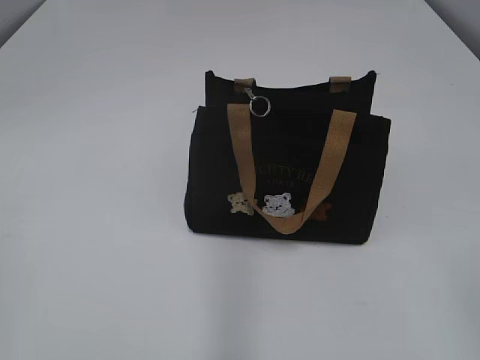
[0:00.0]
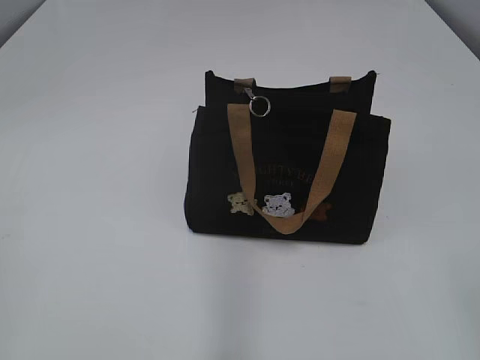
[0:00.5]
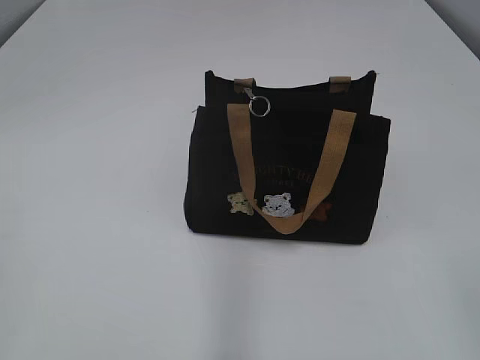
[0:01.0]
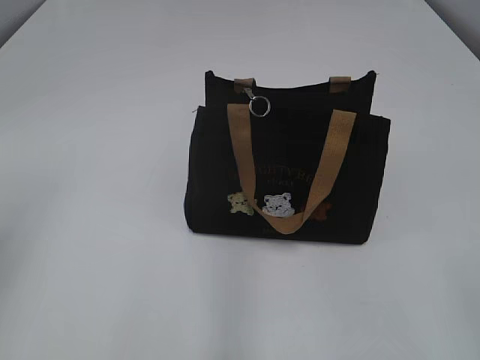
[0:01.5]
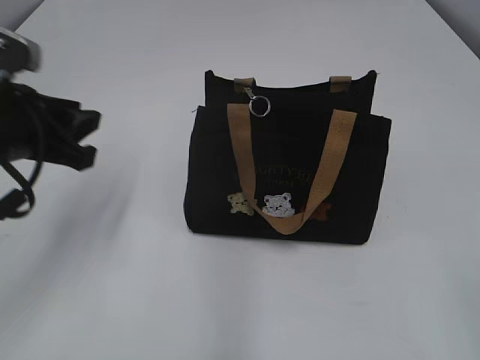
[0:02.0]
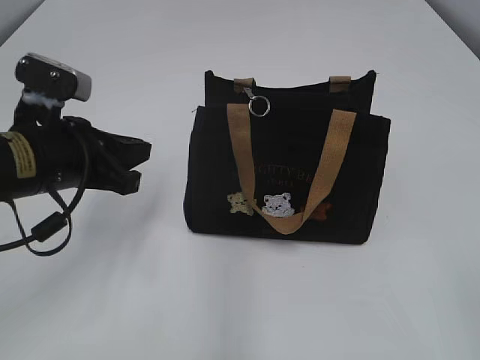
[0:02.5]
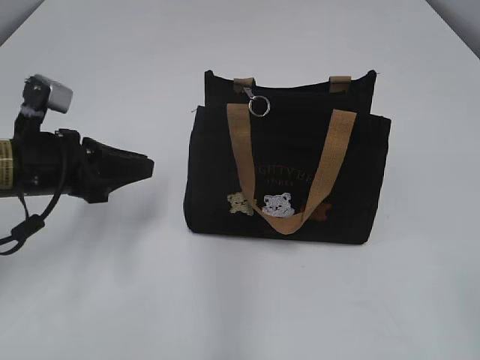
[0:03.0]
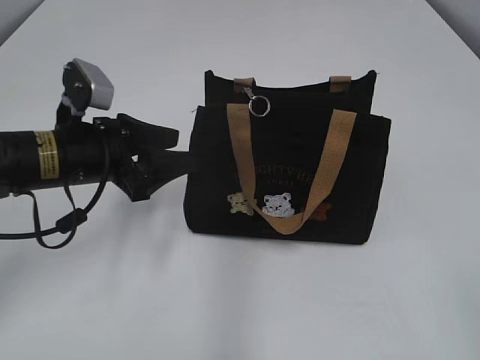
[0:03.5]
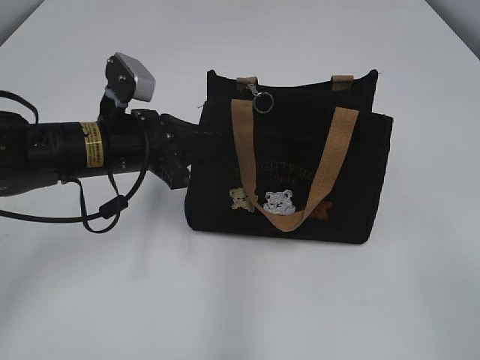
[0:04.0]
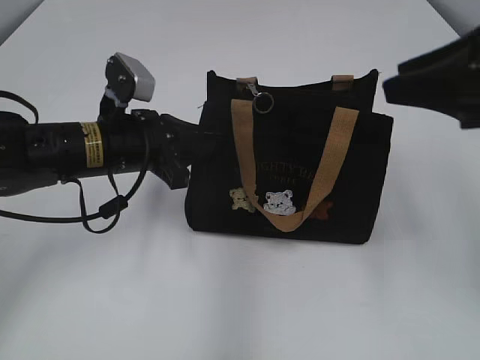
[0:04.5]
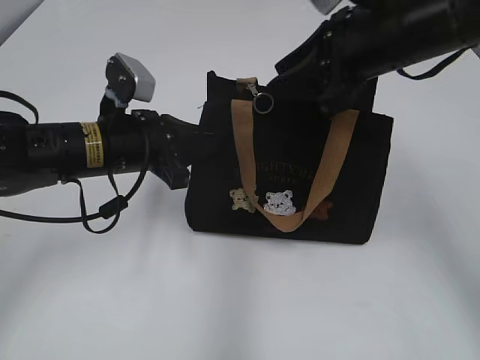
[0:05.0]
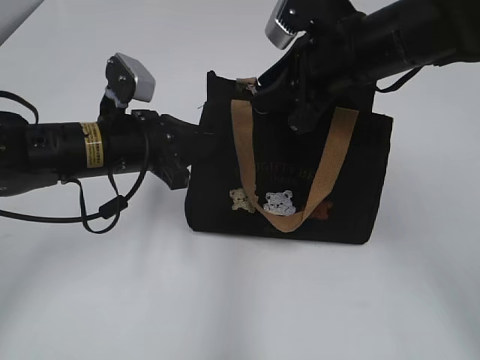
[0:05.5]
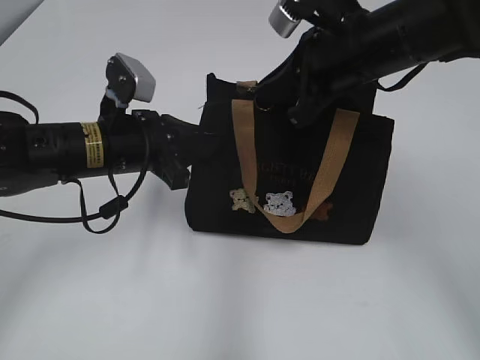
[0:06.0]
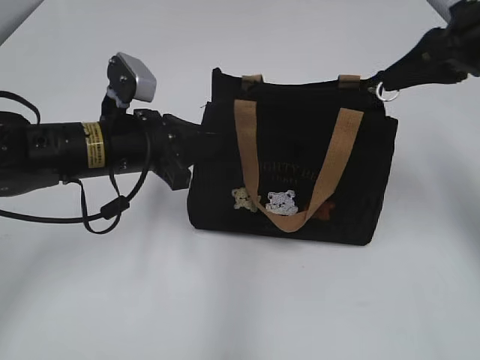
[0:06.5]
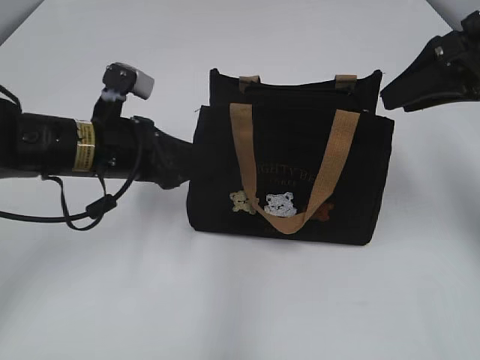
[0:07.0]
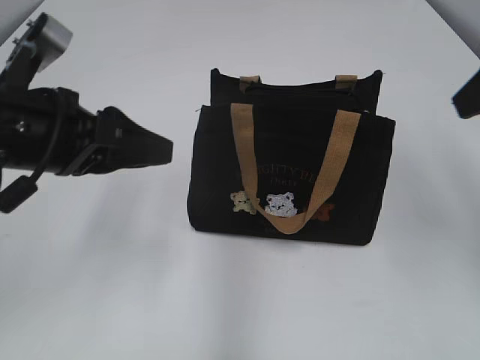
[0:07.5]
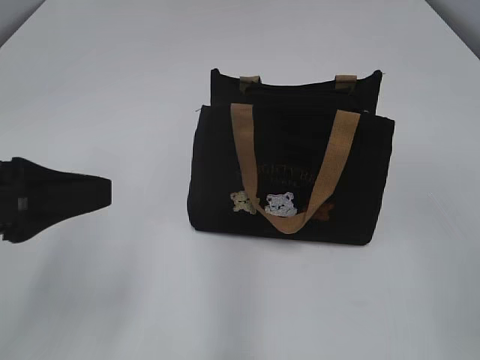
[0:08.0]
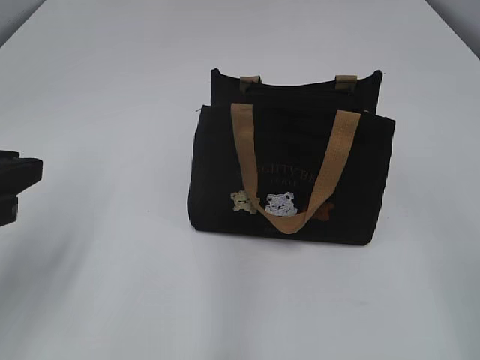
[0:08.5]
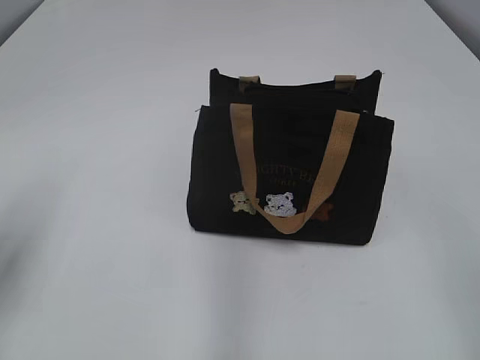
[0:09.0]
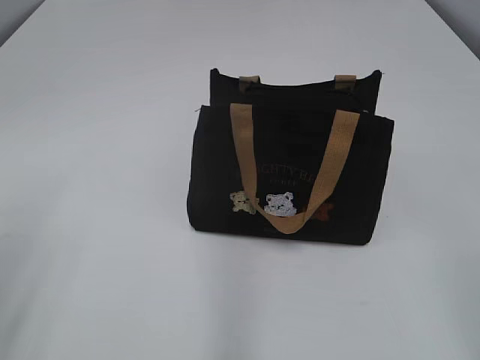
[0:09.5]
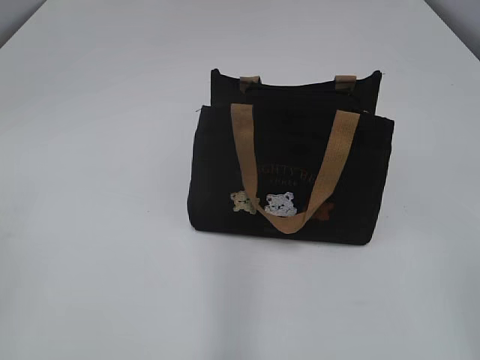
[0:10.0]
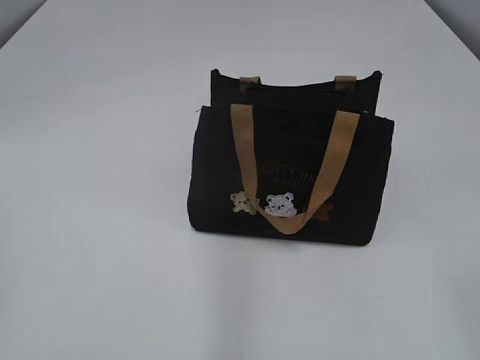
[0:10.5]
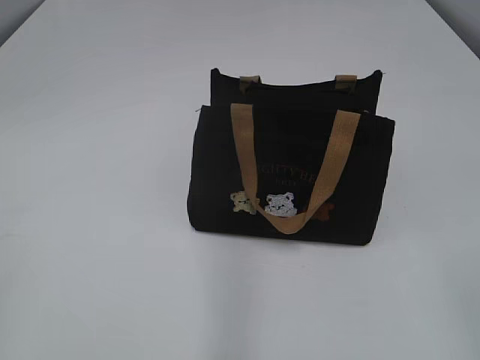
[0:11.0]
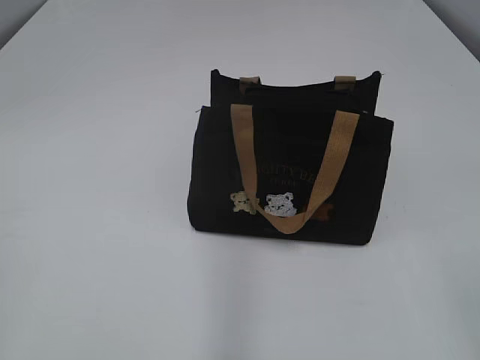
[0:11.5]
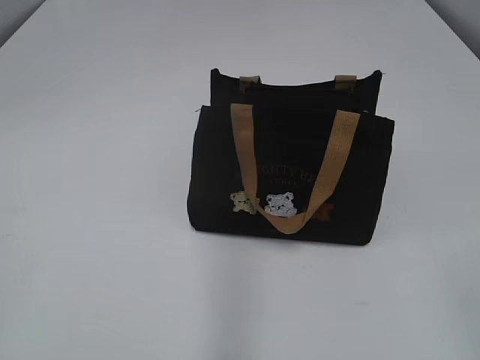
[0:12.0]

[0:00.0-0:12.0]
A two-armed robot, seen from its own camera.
Step, 0:00.0 to 0:06.5: Pull open the zipper with your right hand.
0:02.0 to 0:04.0: The left gripper shifts about 15 cm to the right, downward and forward, and opens, then closes again.
0:04.0 to 0:06.0: The right gripper shifts about 35 cm forward, and closes.
0:06.0 to 0:08.0: The left gripper travels backward, upward and to the left by roughly 20 cm, and opens up. The right gripper shifts roughly 25 cm backward and to the right, and opens its fingers.
0:08.0 to 0:10.0: The left gripper moves backward and to the left, approximately 15 cm.

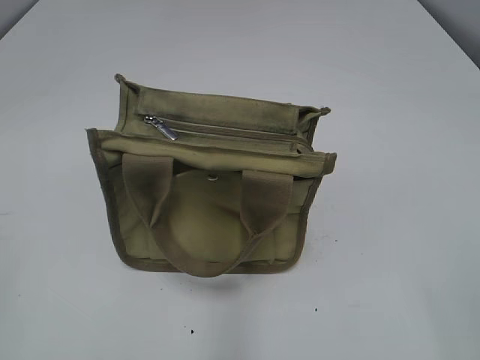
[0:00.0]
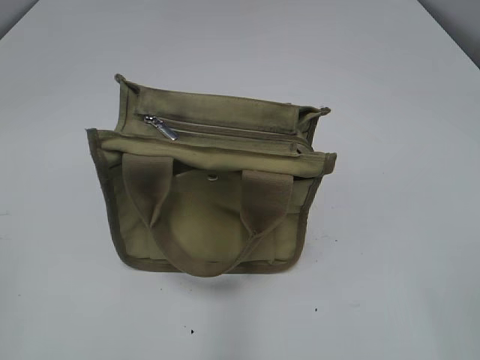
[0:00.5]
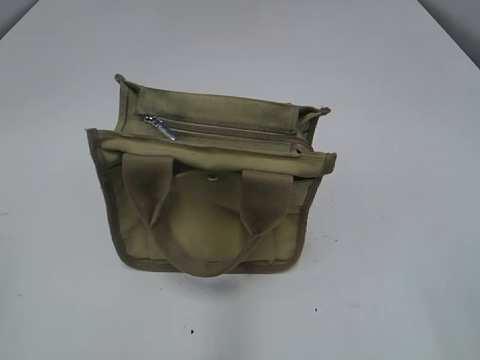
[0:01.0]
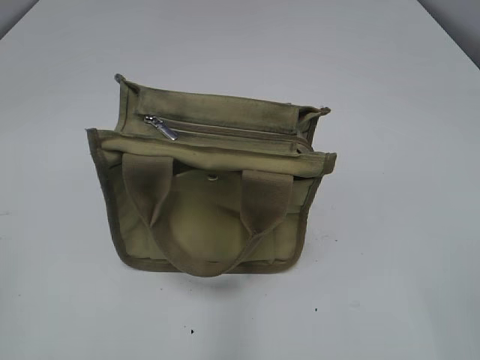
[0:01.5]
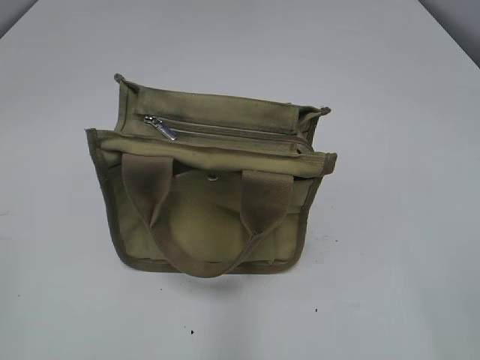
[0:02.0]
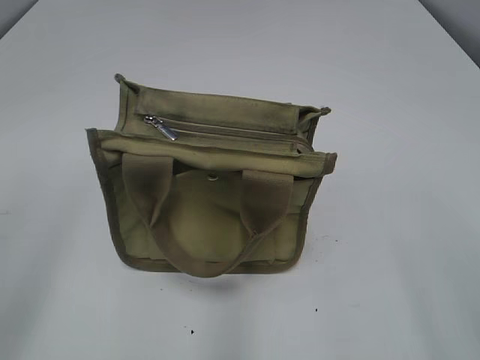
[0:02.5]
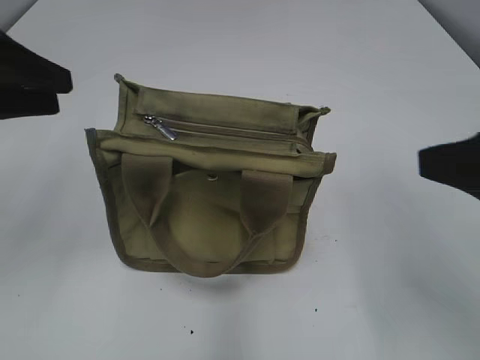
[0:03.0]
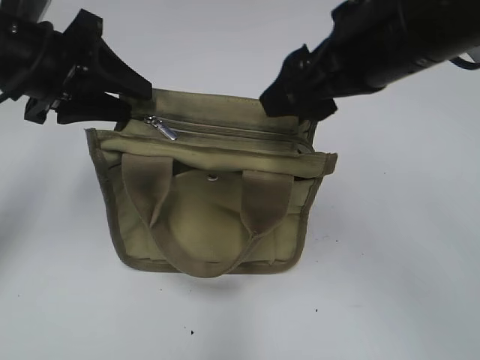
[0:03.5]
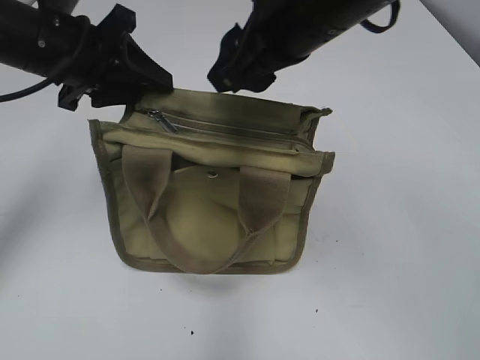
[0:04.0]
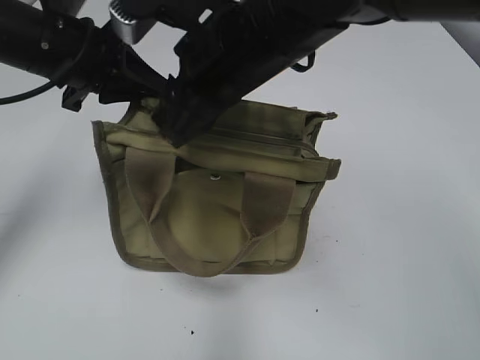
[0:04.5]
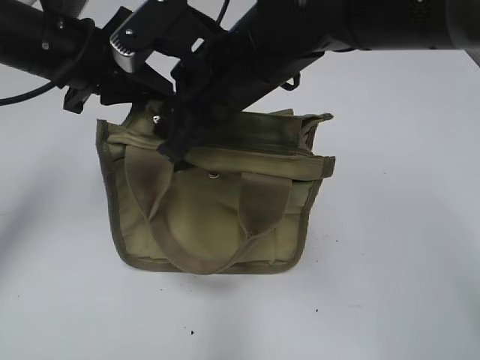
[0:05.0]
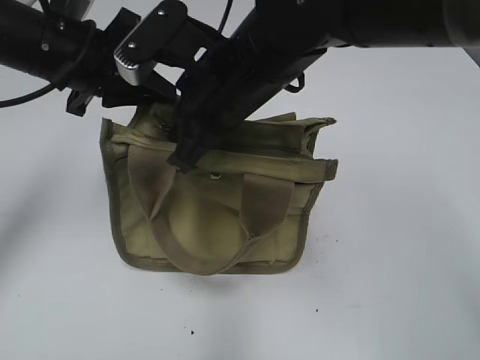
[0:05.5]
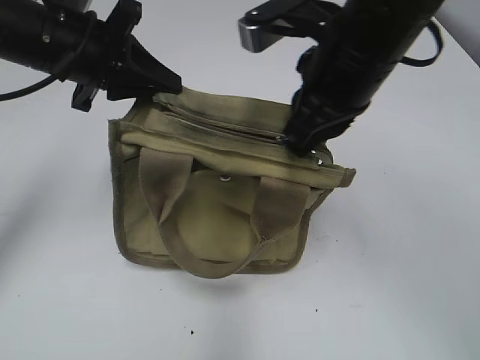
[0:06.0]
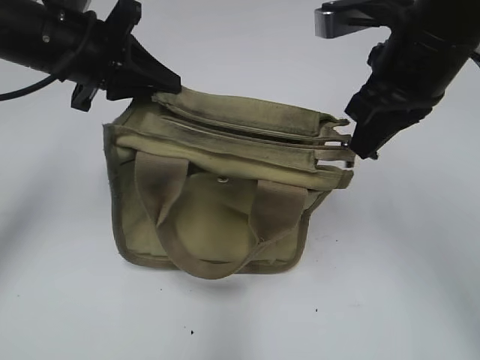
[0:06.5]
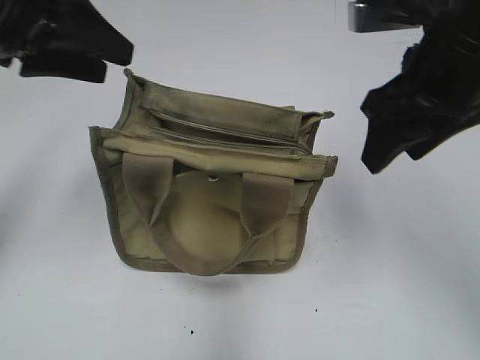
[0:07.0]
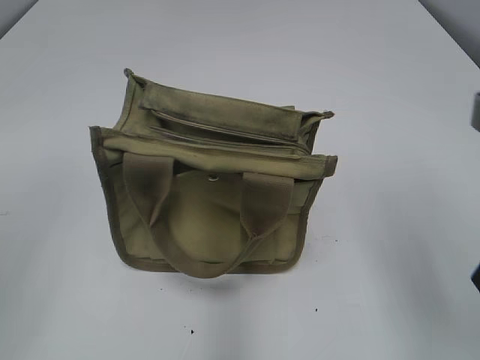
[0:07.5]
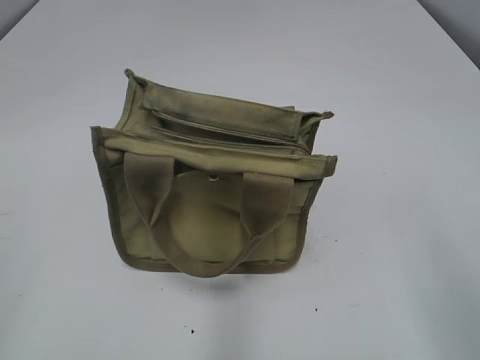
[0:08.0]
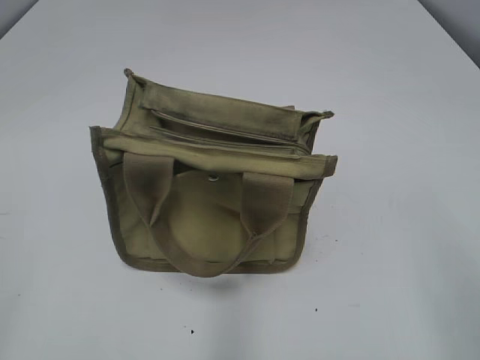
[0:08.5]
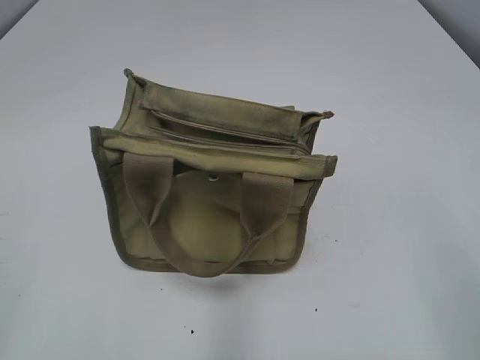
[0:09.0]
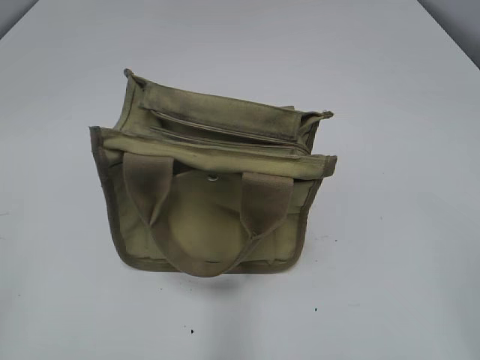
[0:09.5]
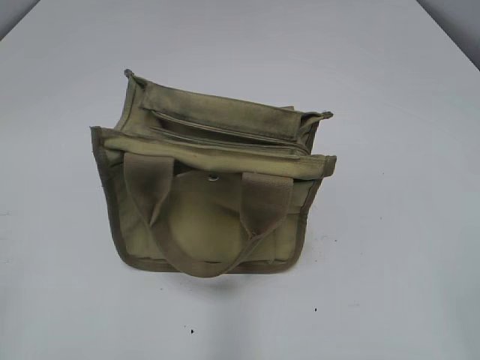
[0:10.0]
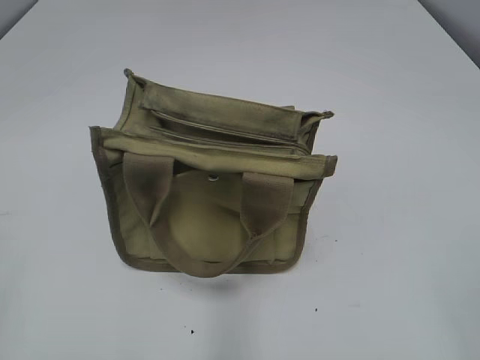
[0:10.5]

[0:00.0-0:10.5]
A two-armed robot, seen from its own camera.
Step, 0:00.0 to 0:06.5: Pull open the zipper with your right hand.
0:02.0 to 0:04.0: The right gripper shifts roughly 35 cm forward and to the left. Meanwhile the left gripper heads forward, covering approximately 35 cm.
0:04.0 to 0:06.5: The right gripper moves to the right, approximately 10 cm, and closes. Meanwhile the left gripper closes its fingers.
0:06.5 to 0:08.5: The right gripper moves backward and to the right, roughly 25 cm, and opens up, while the left gripper shifts about 35 cm backward and to the left, and opens its fingers.

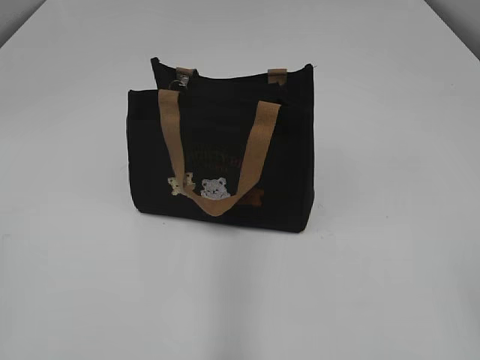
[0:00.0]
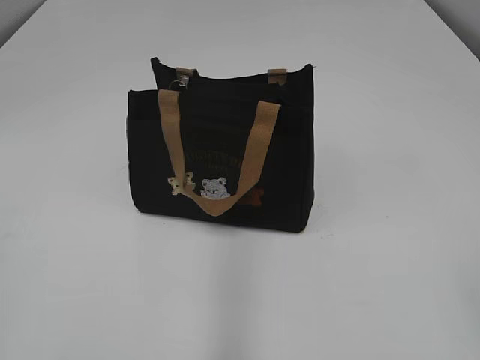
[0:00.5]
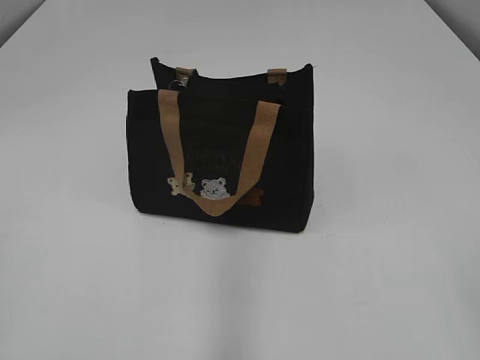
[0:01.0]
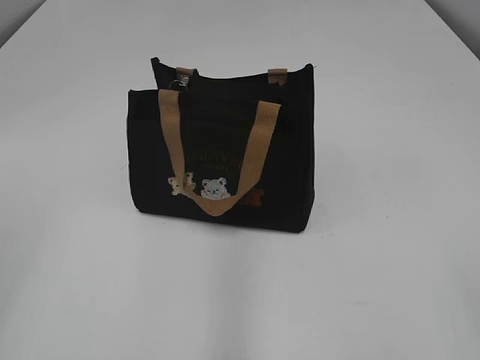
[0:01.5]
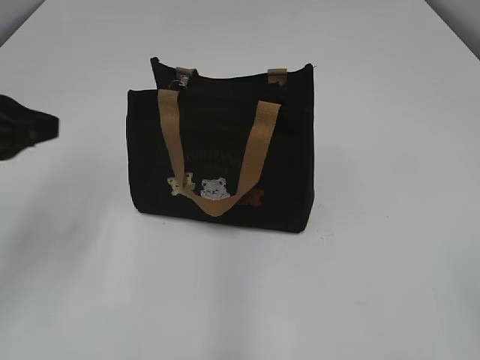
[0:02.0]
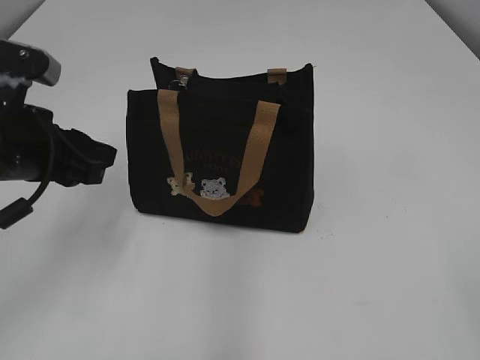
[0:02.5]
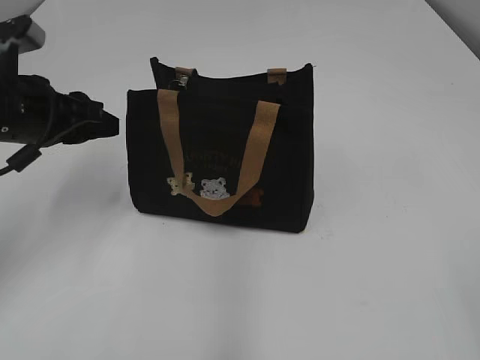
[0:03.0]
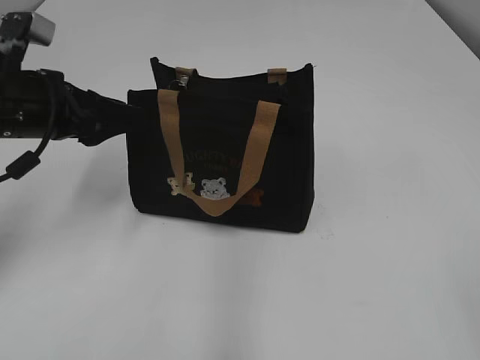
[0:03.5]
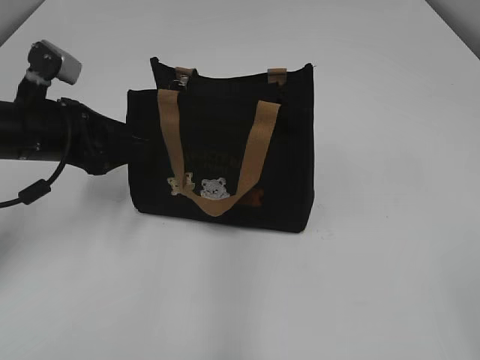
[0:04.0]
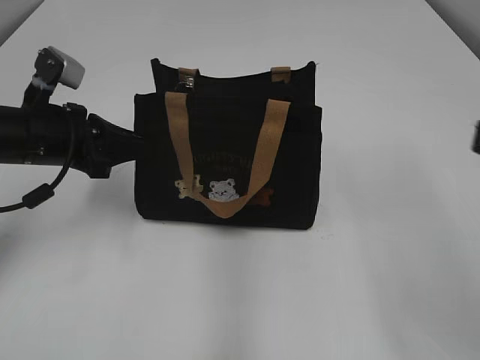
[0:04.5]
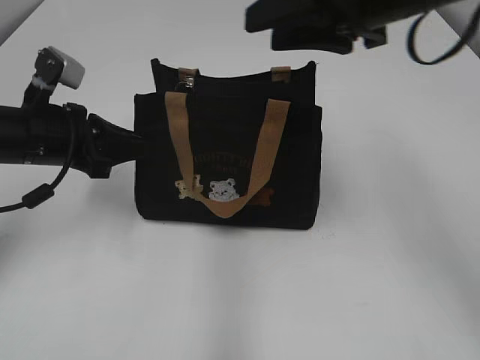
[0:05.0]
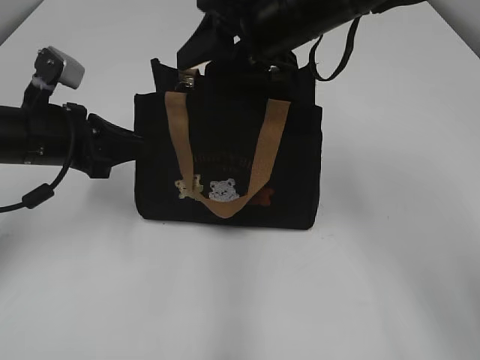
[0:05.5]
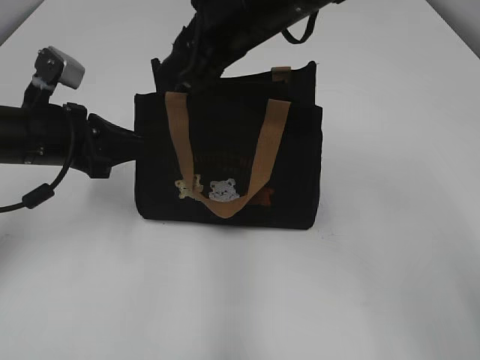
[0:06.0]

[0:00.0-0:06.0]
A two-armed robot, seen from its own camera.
0:02.0 to 0:04.0: The left gripper moves forward and downward, about 10 cm, and opens up.
0:04.0 to 0:06.0: The left gripper closes; the right gripper travels forward and to the left by about 40 cm.
